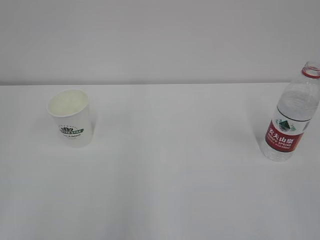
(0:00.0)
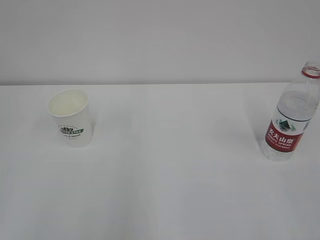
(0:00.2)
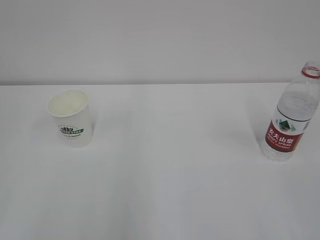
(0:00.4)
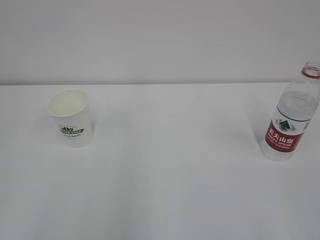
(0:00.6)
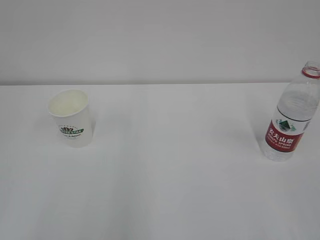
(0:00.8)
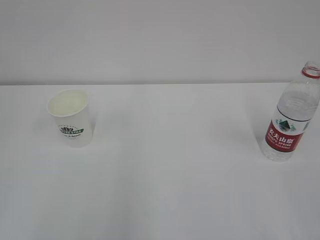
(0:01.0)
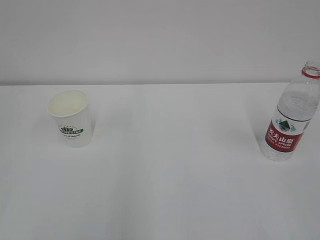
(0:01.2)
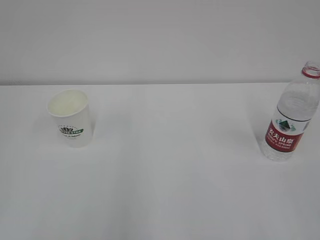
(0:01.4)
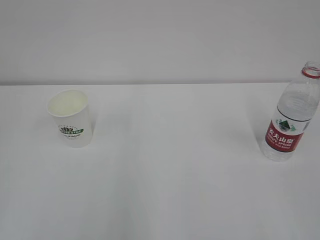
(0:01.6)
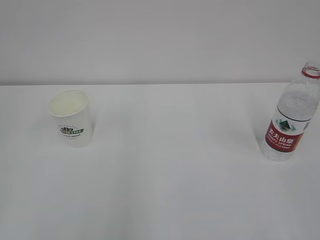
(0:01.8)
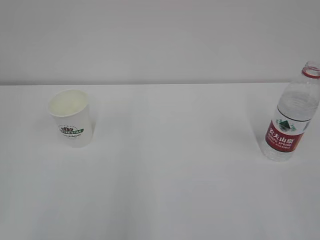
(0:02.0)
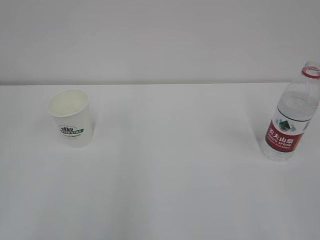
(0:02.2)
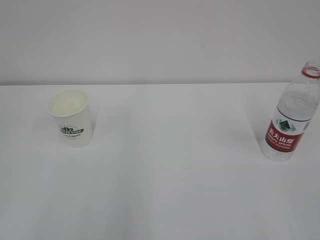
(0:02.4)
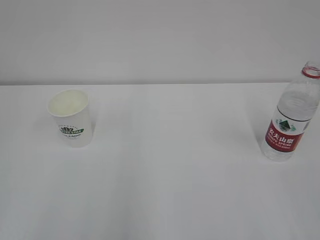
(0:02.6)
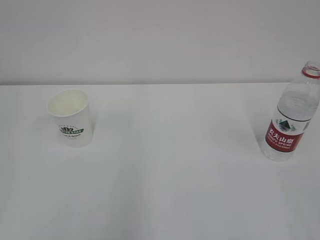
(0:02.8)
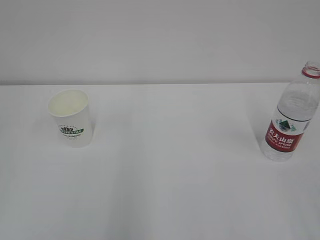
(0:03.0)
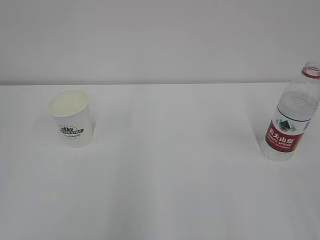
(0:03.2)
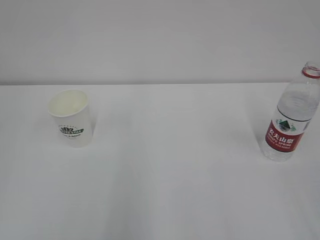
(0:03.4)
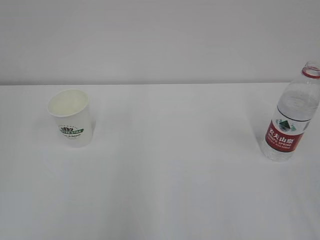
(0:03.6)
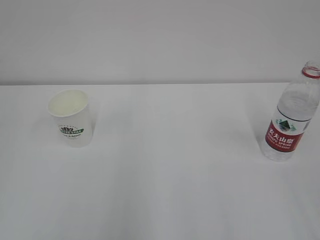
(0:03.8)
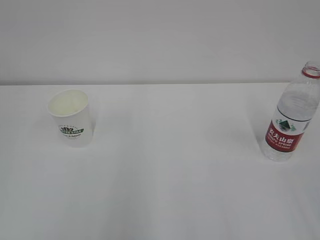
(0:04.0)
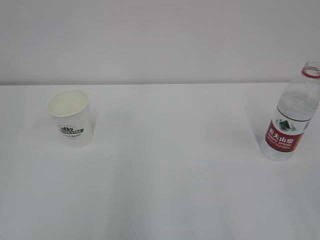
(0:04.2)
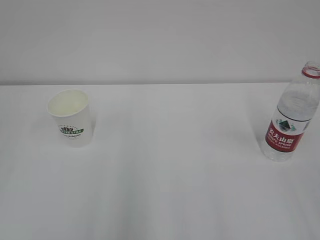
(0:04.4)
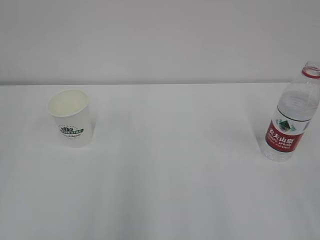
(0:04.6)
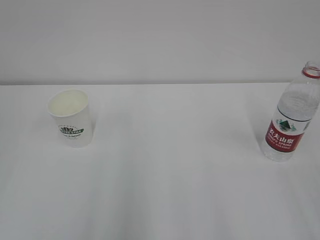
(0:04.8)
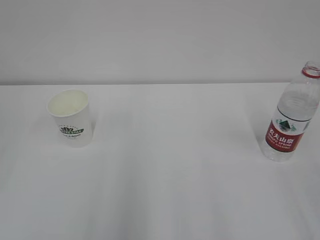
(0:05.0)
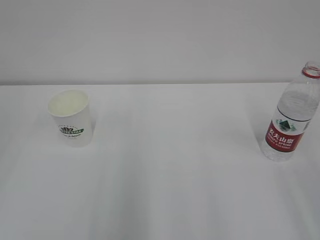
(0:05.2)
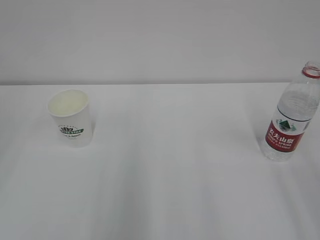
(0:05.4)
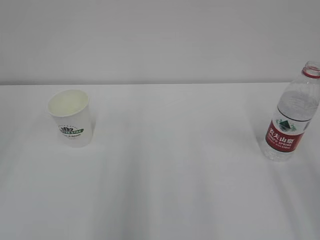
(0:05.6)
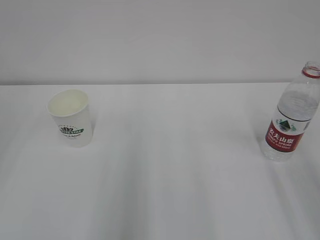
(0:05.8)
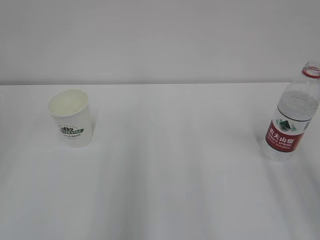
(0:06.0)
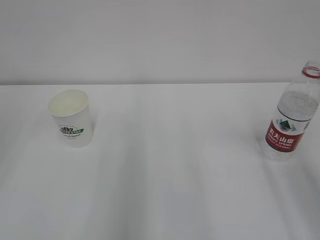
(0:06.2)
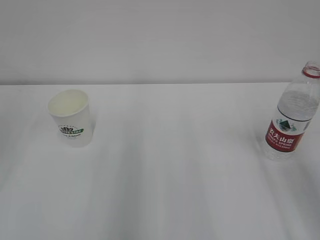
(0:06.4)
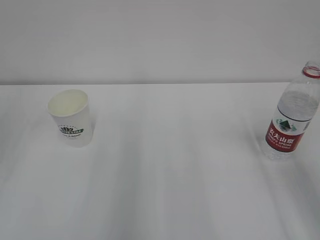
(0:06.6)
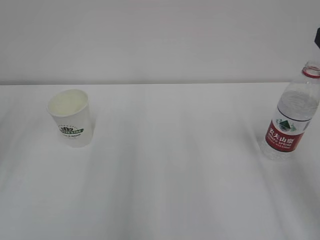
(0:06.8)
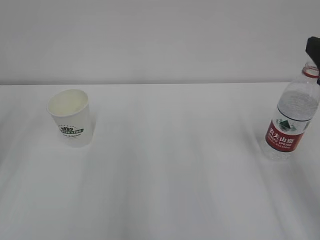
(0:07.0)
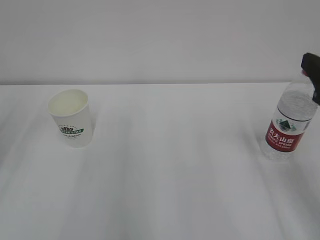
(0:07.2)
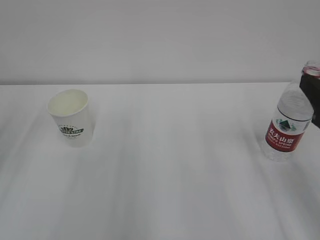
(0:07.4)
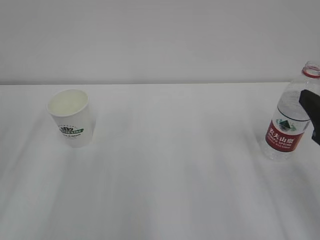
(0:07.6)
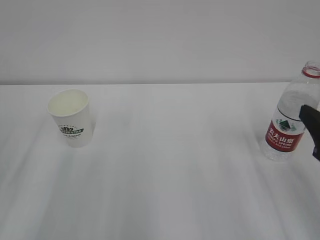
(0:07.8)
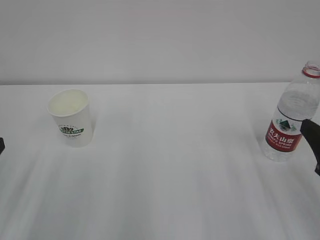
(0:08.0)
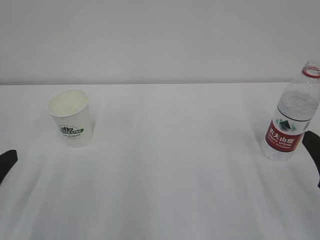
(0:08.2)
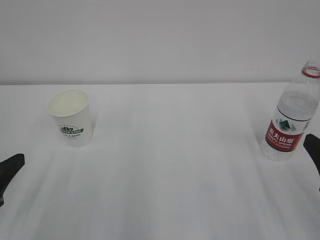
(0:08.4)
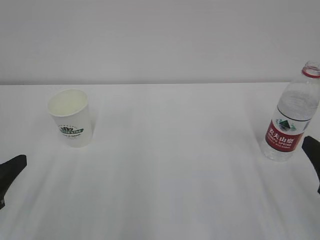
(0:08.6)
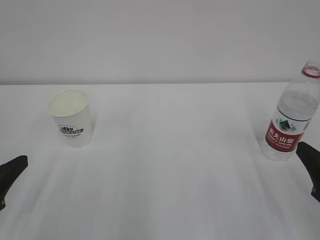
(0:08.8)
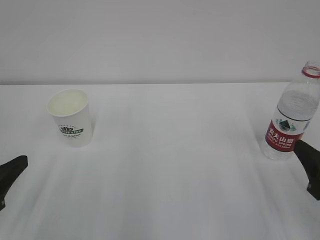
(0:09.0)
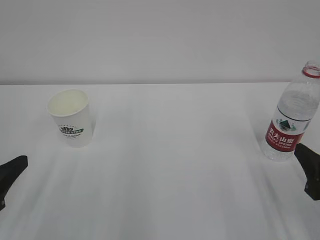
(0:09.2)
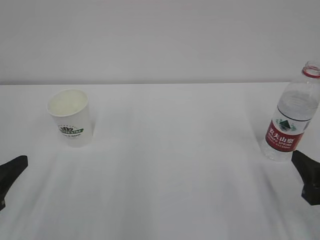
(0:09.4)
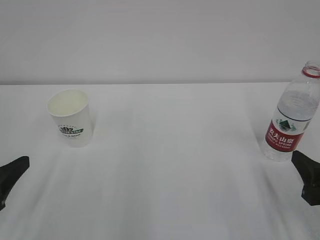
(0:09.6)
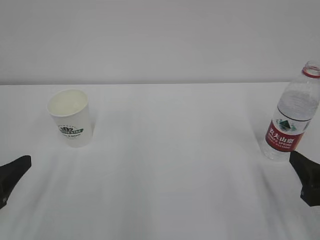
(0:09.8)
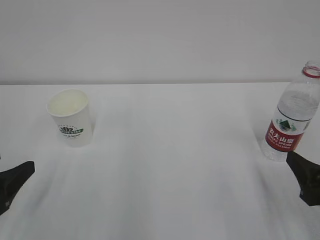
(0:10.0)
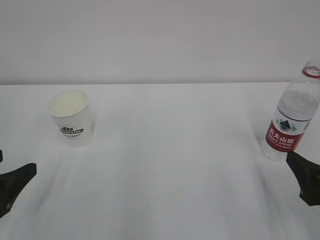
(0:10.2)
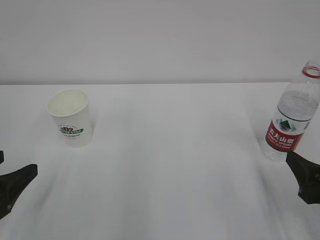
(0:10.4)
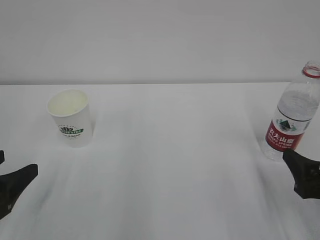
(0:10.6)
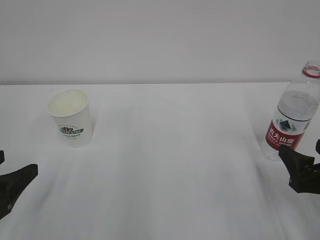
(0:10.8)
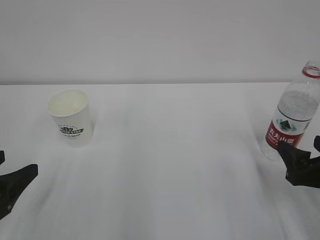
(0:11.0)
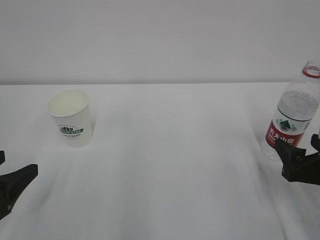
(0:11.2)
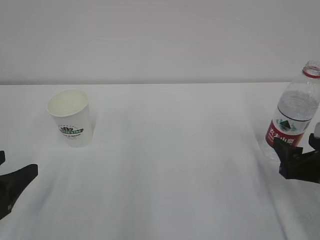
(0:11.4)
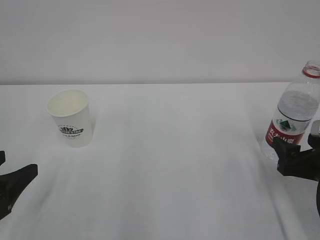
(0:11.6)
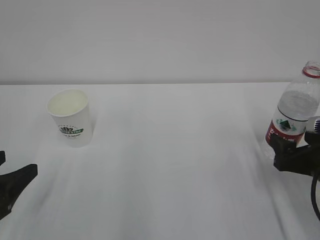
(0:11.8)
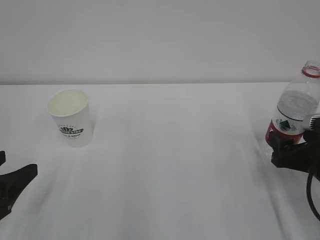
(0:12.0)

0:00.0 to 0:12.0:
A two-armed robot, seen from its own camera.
0:06.0 to 0:07.6: The right gripper heads downward and forward, covering some 10 cm.
0:07.6 to 0:09.0: Both grippers travel together downward, roughly 5 cm.
0:09.0 to 0:10.4: The right gripper opens its fingers. Meanwhile the left gripper opens up.
0:10.4 to 0:12.0: The right gripper moves forward, approximately 10 cm.

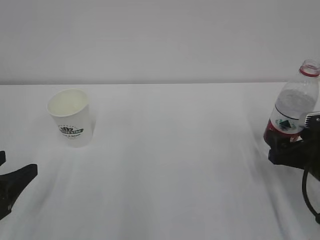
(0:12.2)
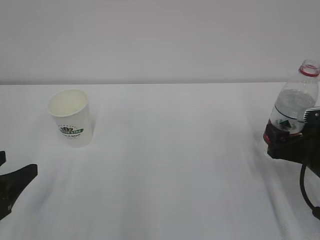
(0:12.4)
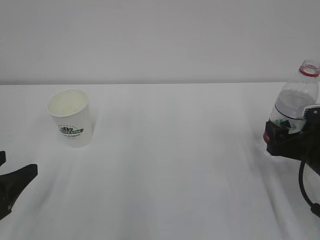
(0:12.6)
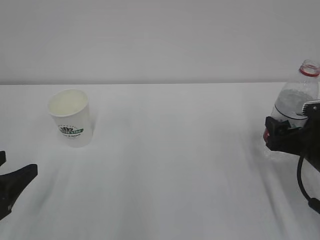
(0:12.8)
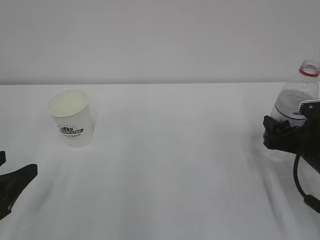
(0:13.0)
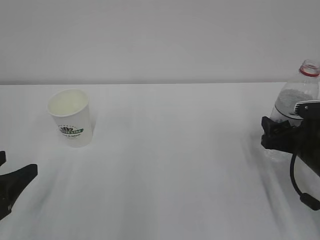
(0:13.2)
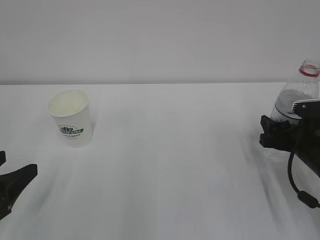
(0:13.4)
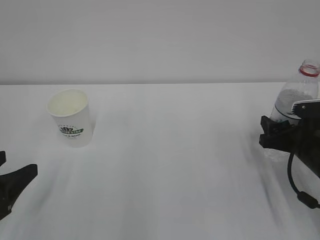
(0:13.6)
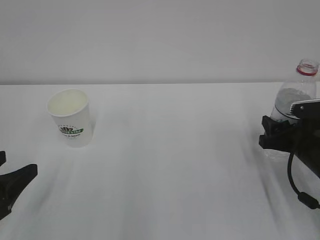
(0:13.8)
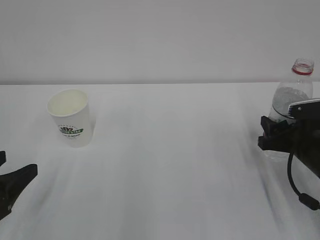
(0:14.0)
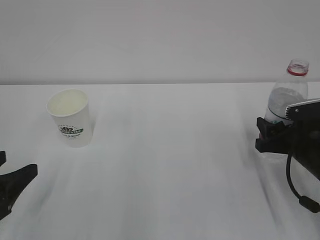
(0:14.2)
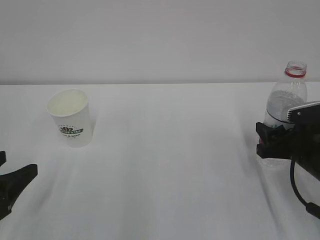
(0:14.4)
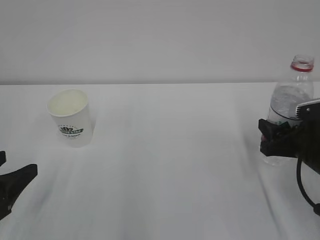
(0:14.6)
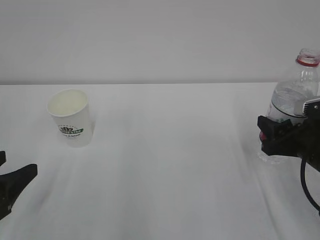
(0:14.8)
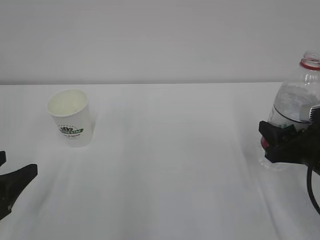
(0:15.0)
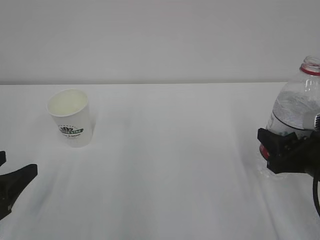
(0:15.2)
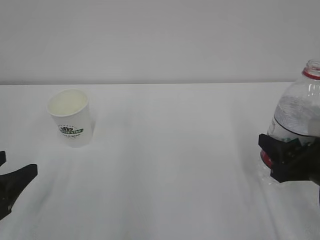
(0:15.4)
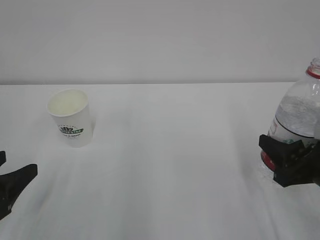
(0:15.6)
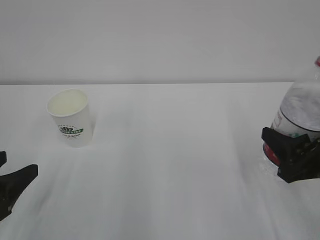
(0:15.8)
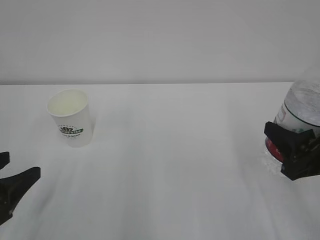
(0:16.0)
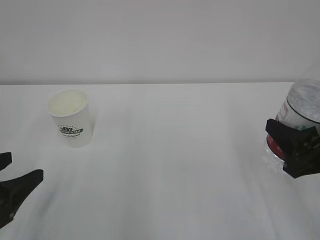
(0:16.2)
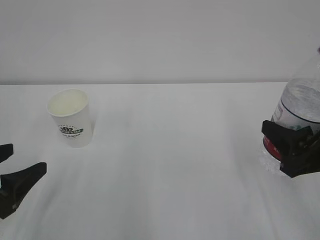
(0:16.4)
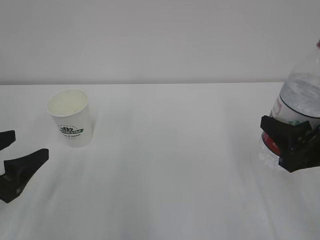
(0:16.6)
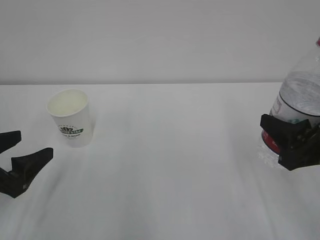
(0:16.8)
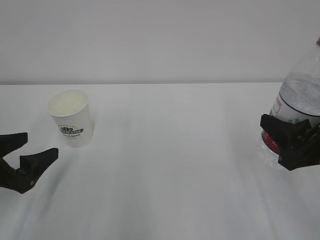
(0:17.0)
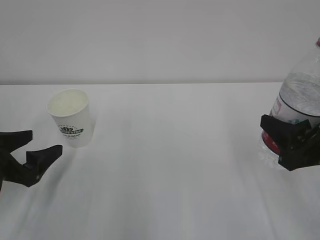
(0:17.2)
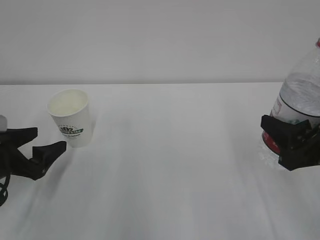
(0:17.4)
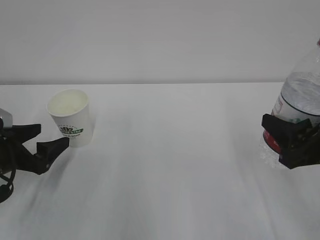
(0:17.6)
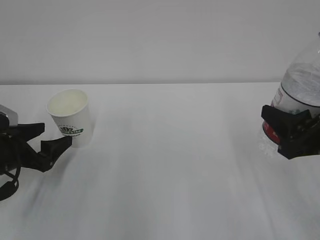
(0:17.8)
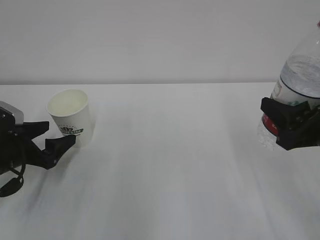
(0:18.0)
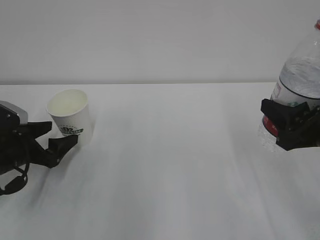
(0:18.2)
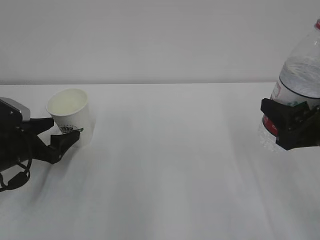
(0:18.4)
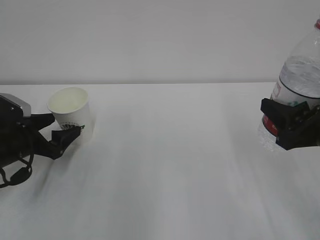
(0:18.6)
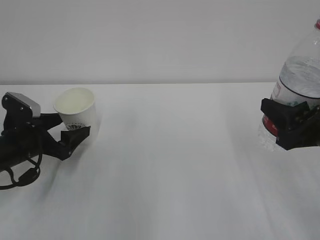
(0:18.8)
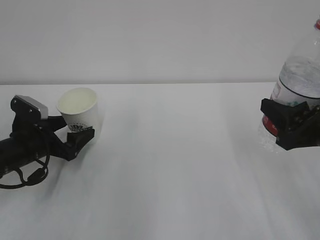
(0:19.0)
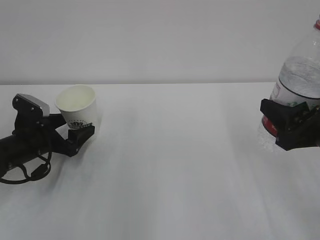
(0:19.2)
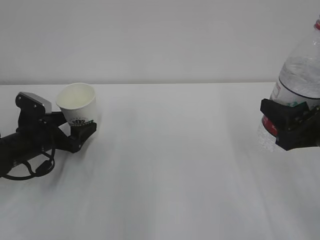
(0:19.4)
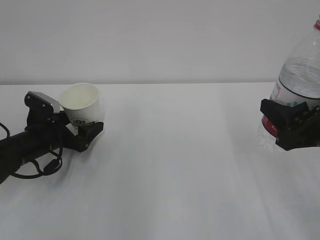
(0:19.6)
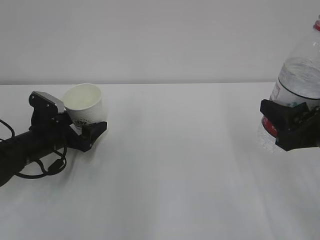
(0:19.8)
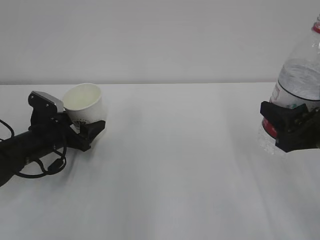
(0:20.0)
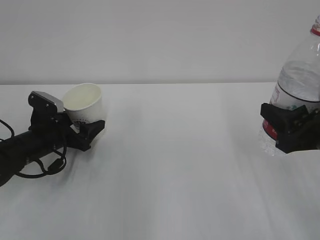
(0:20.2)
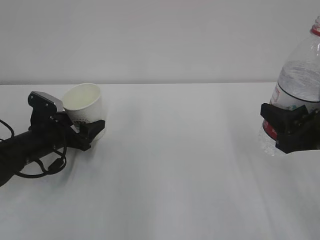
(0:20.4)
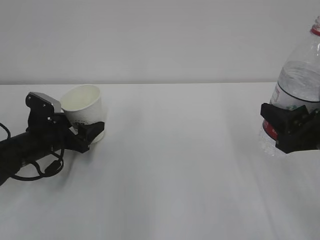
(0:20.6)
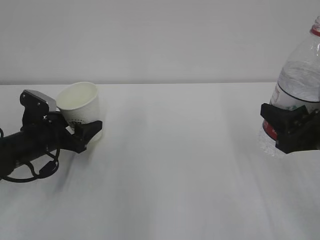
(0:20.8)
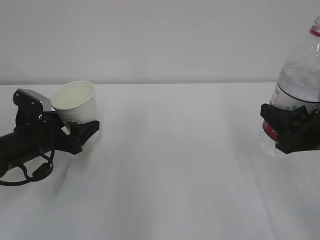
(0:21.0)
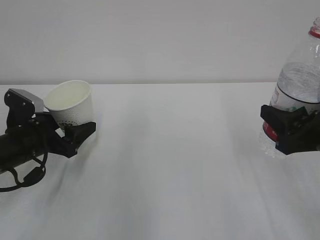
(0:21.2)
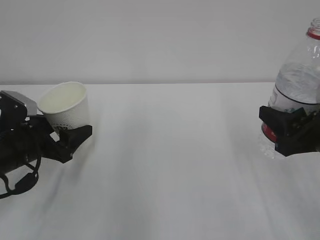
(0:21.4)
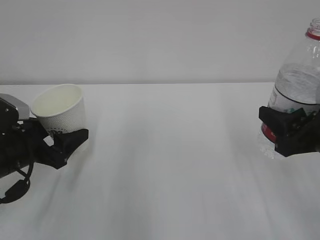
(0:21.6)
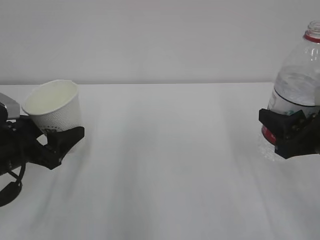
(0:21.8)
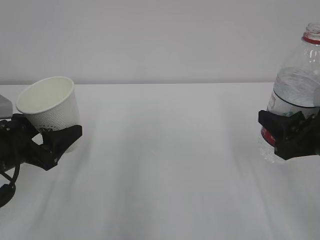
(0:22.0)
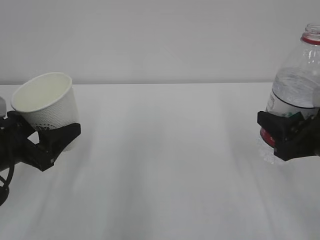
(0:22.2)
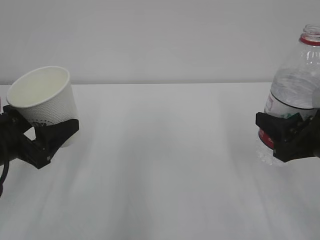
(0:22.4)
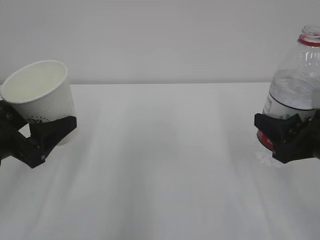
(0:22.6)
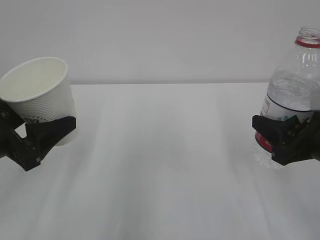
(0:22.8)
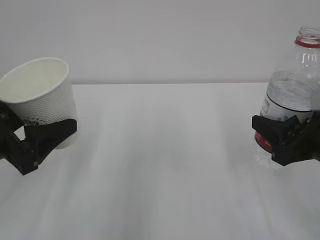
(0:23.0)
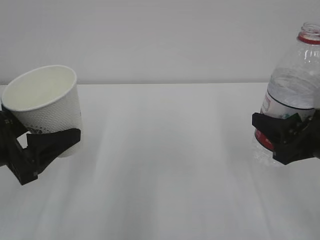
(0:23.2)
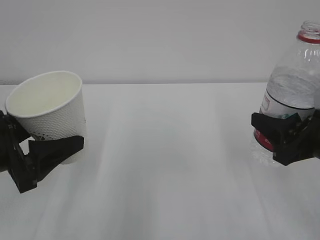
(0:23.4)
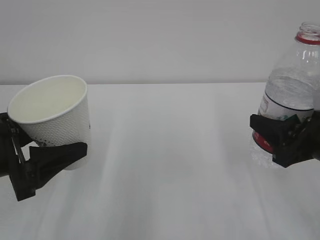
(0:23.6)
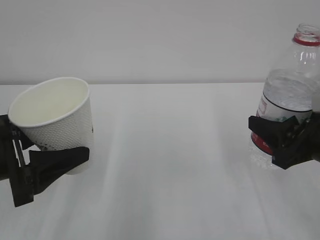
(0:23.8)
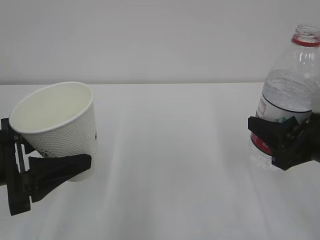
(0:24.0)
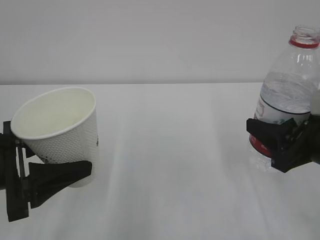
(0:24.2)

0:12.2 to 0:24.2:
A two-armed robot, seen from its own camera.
0:12.2 to 0:13.8: The right gripper closes.
0:13.8 to 0:15.2: The right gripper travels backward by roughly 5 cm.
0:15.2 to 0:16.6: The left gripper opens. The right gripper changes place by about 5 cm.
0:16.6 to 0:18.2: The left gripper is displaced forward and downward by approximately 15 cm.
0:18.2 to 0:19.8: The left gripper is displaced forward by approximately 5 cm.
0:19.8 to 0:21.2: The left gripper ends up about 5 cm from where it was, and closes up.
0:21.2 to 0:22.6: The left gripper heads upward and backward, covering some 10 cm.
